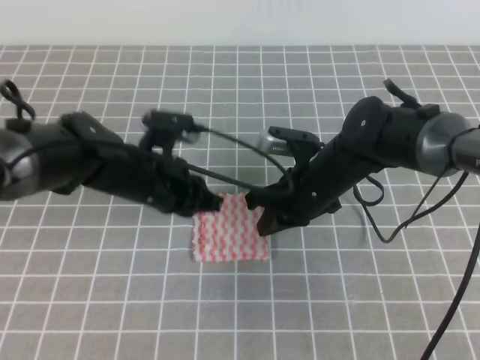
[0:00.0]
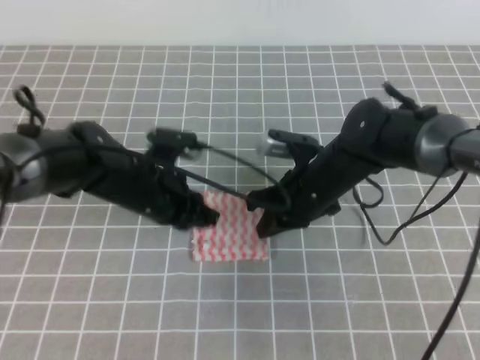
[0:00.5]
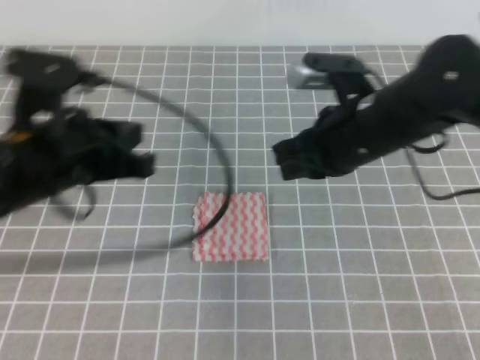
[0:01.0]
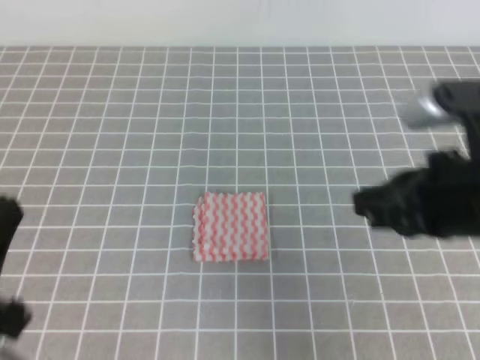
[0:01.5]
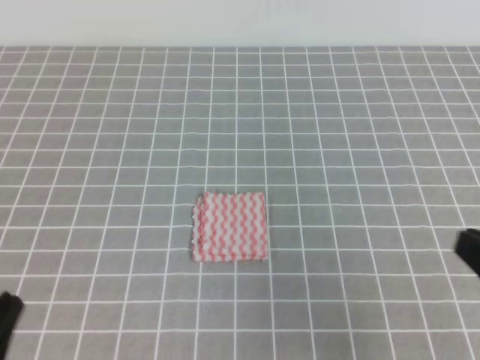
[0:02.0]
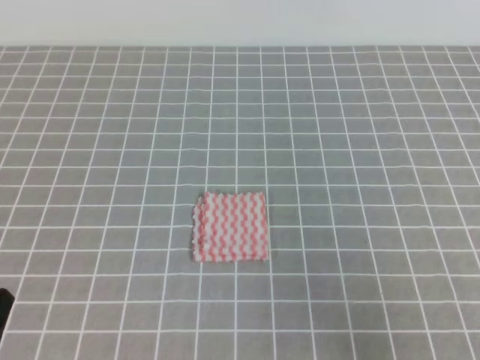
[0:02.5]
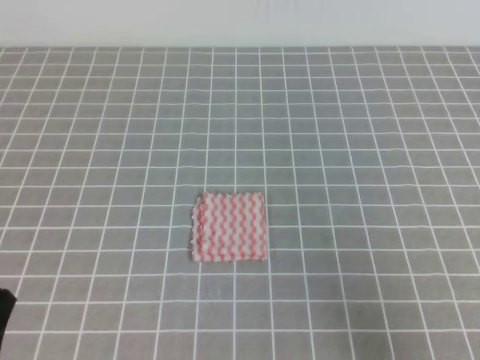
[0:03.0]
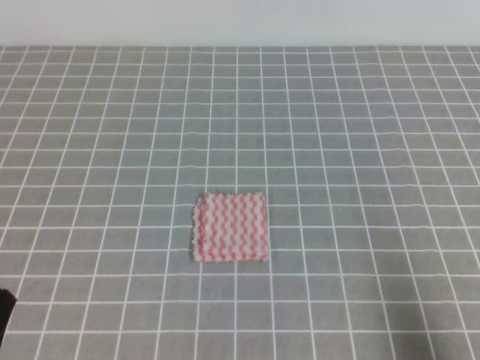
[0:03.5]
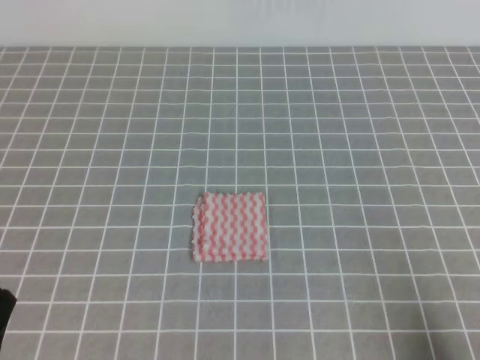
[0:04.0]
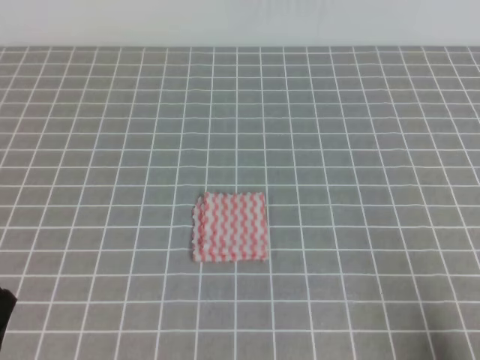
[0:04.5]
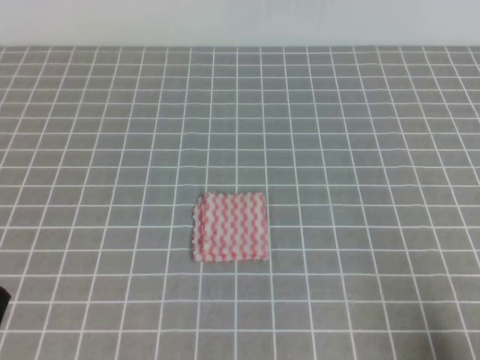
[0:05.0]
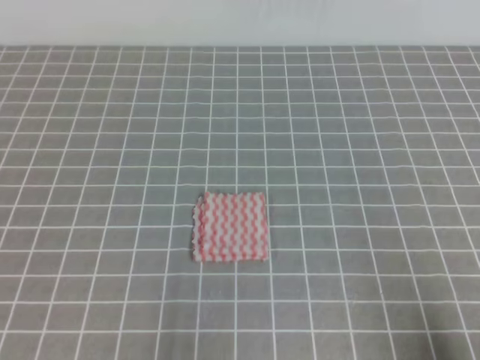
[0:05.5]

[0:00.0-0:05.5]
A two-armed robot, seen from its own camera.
Step, 0:00.0 to 0:05.5: Fold the towel.
0:00.0 to 0:02.0: The left gripper moves backward and to the left, roughly 30 cm. Meanwhile the right gripper heads backward, to the right and upward, covering roughly 30 cm.
0:02.0 to 0:03.5: The right gripper moves downward, to the right and backward, roughly 10 cm.
